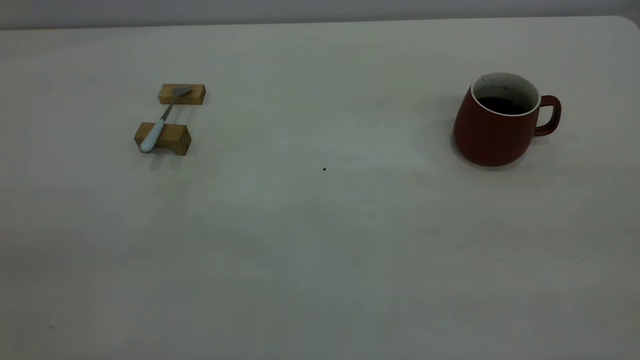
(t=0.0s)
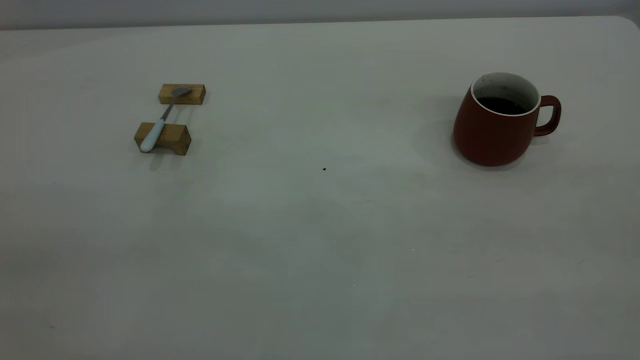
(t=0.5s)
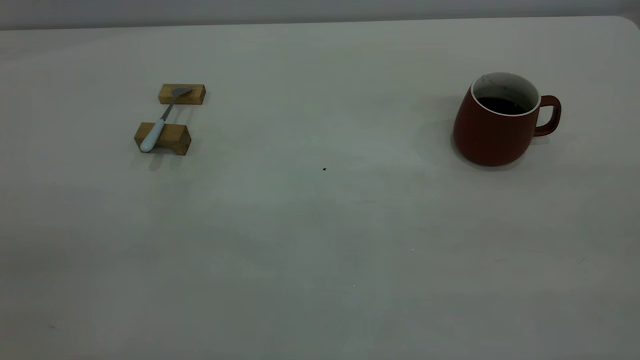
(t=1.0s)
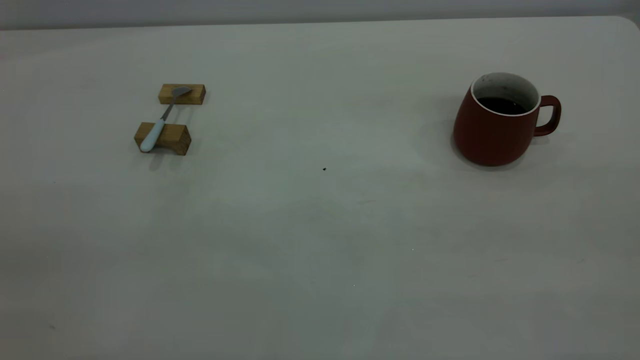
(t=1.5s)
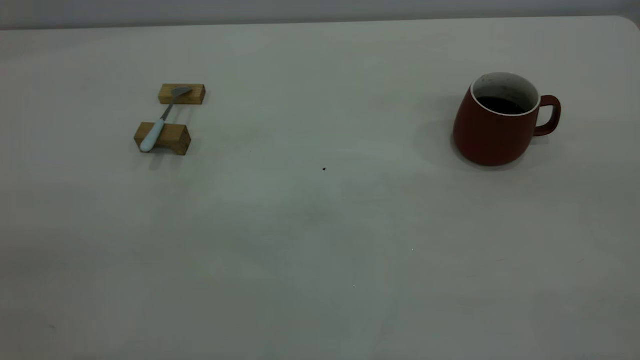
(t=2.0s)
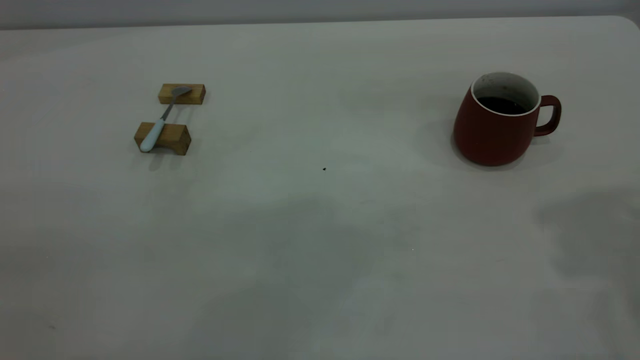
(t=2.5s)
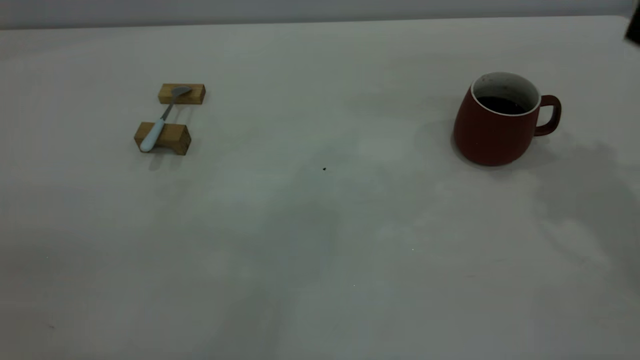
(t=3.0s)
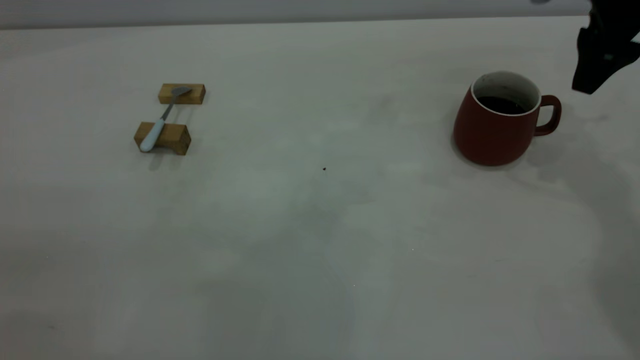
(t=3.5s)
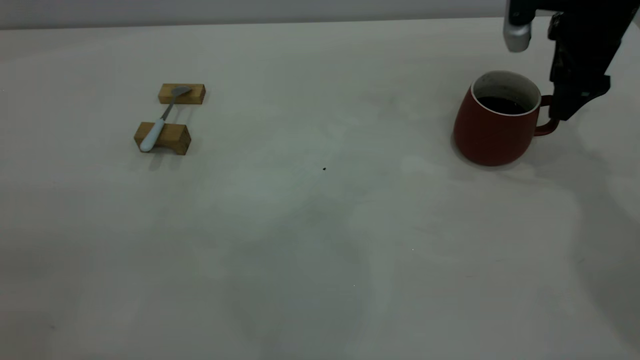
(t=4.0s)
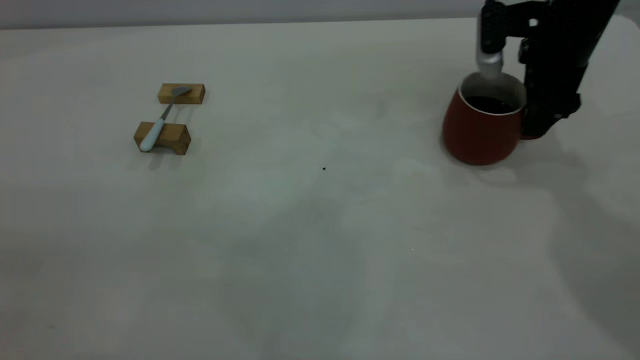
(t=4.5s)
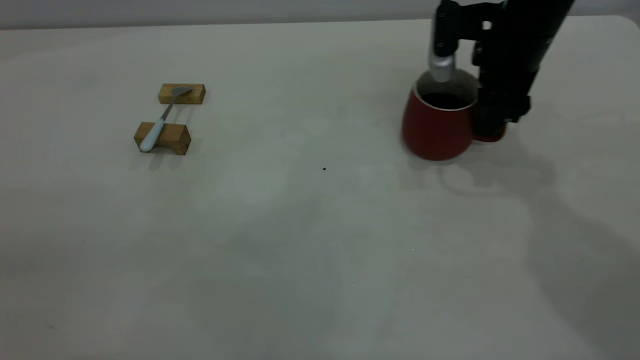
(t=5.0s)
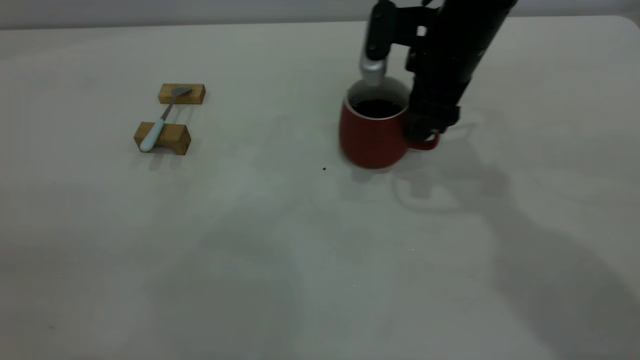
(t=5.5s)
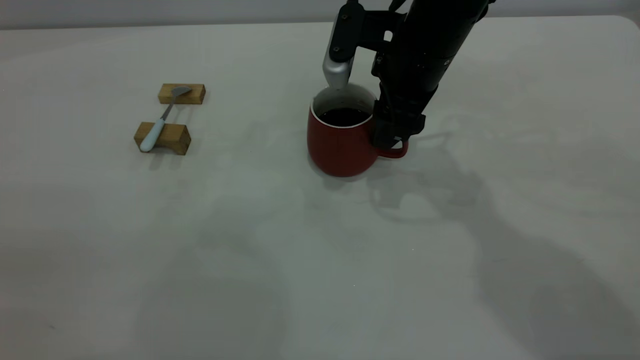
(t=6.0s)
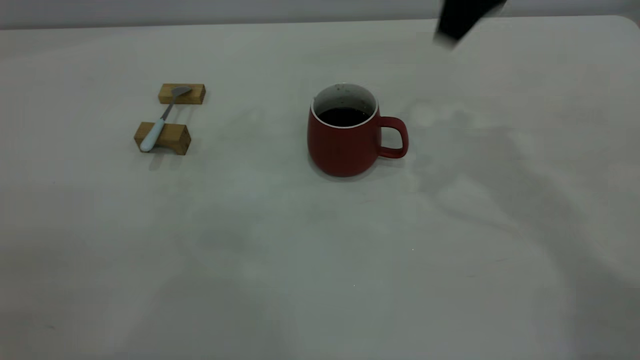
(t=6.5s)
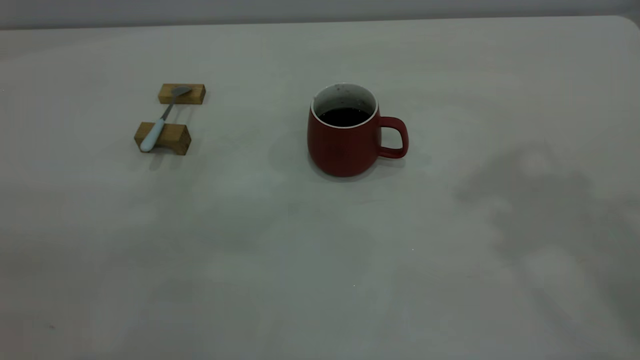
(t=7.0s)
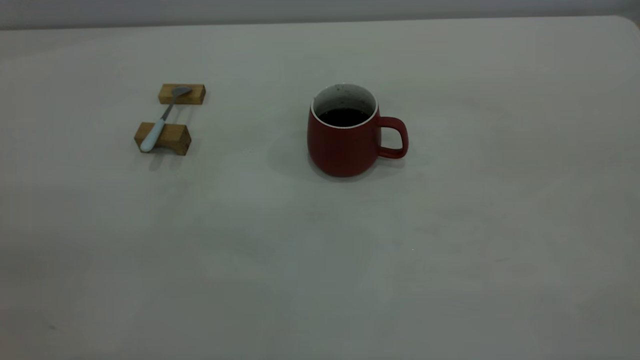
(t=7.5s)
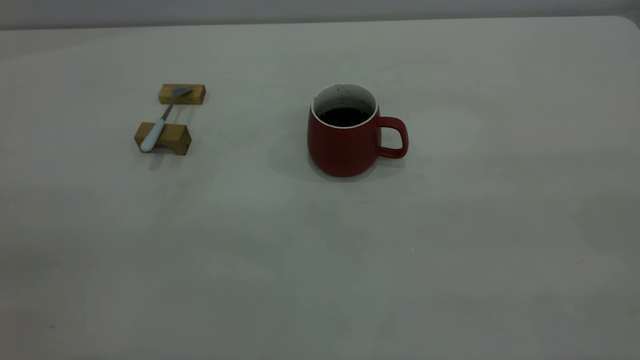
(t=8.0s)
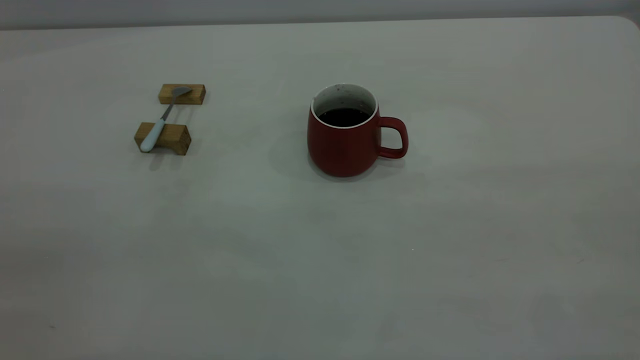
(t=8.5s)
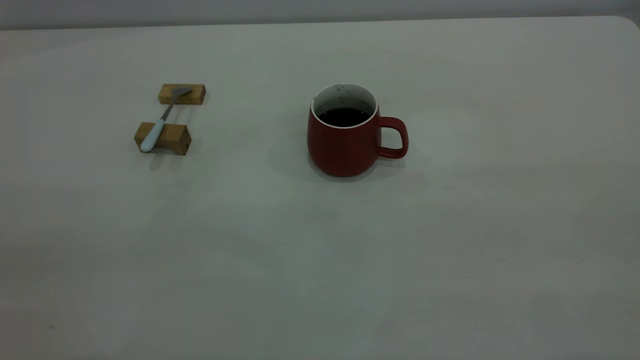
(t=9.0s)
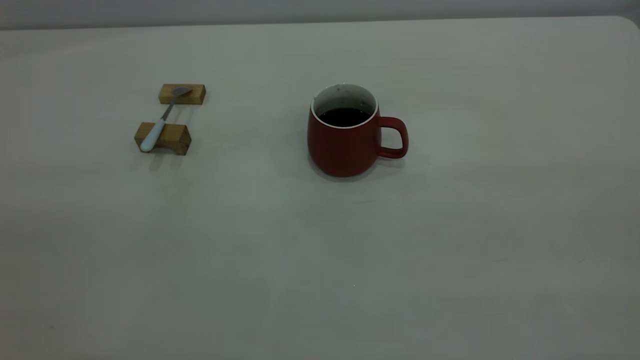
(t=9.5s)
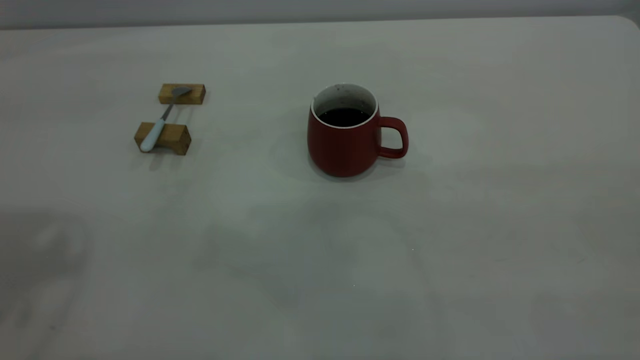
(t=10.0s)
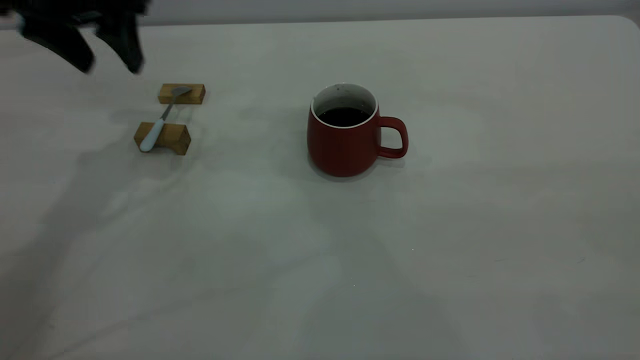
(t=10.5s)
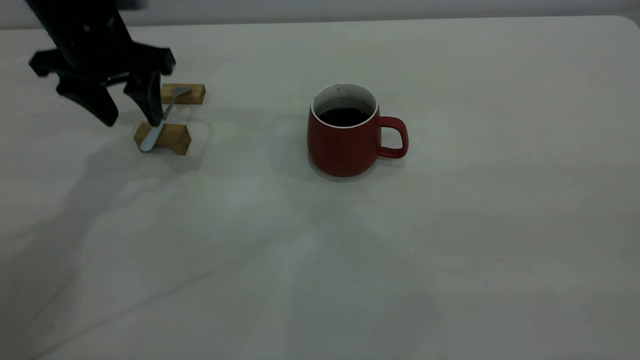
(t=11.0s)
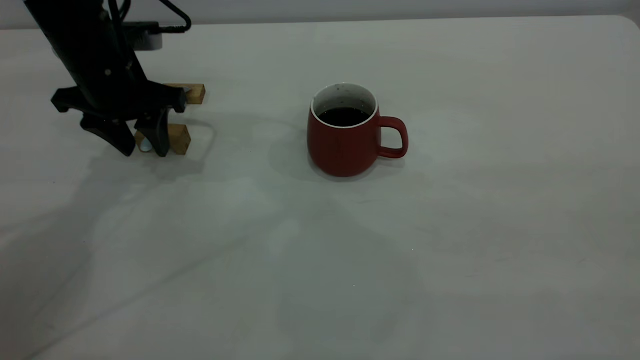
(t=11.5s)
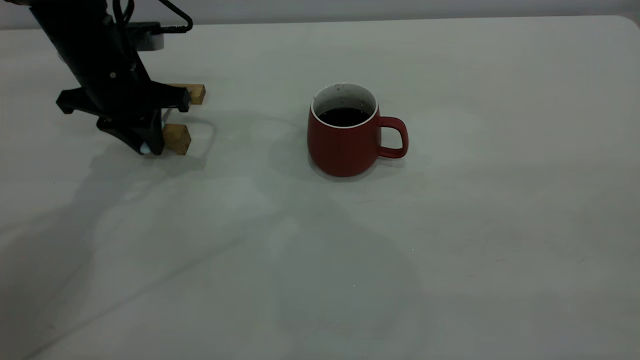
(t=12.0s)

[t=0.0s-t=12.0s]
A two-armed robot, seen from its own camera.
Step, t=0.0s to t=6.0s: Move the cup with coffee to the center of view.
t=2.0s to t=4.0s: The right gripper is displaced forward and downward by roughly 40 cm, and opens its fingers.
t=4.0s to t=6.0s: The right gripper travels to the left by some 15 cm.
t=6.0s to t=8.0s: The right gripper heads backward, upward and to the right, covering approximately 50 cm.
t=10.0s to t=12.0s: The left gripper moves downward and forward, about 30 cm, and closes up.

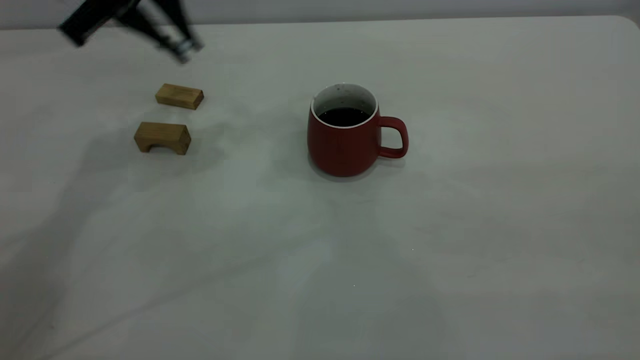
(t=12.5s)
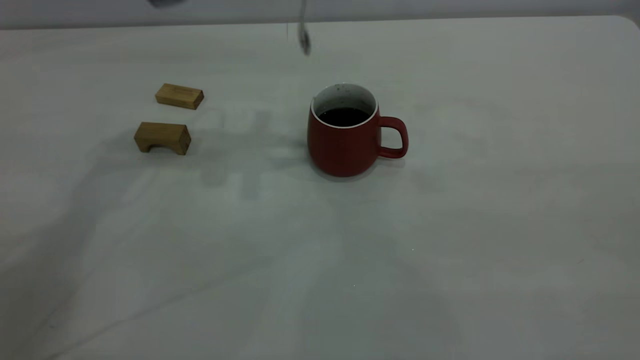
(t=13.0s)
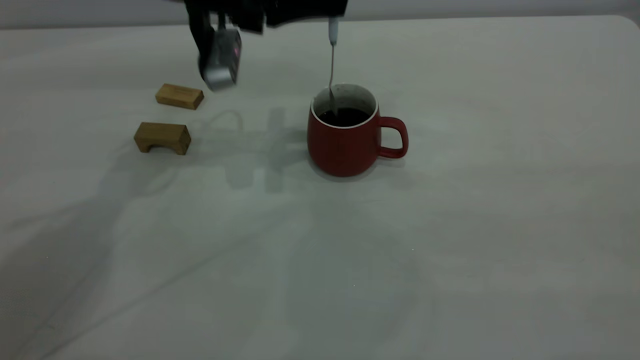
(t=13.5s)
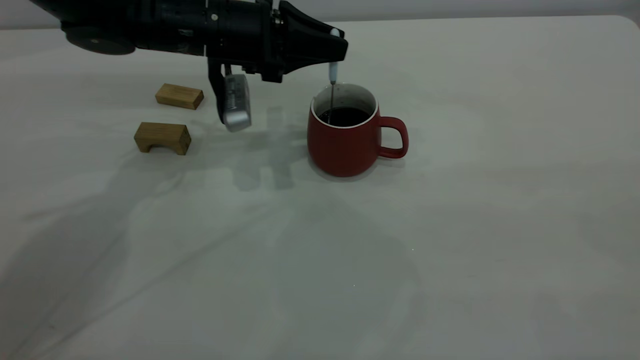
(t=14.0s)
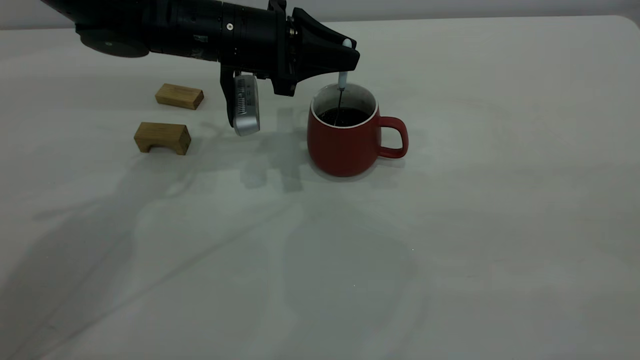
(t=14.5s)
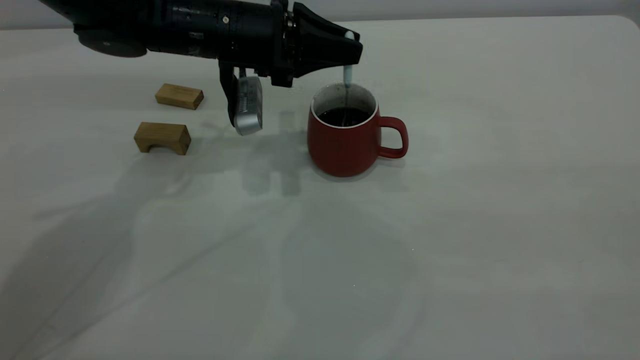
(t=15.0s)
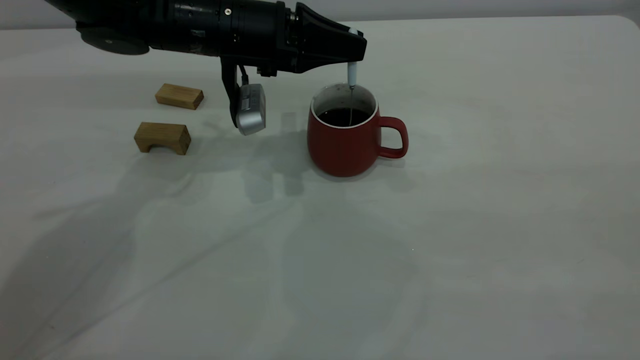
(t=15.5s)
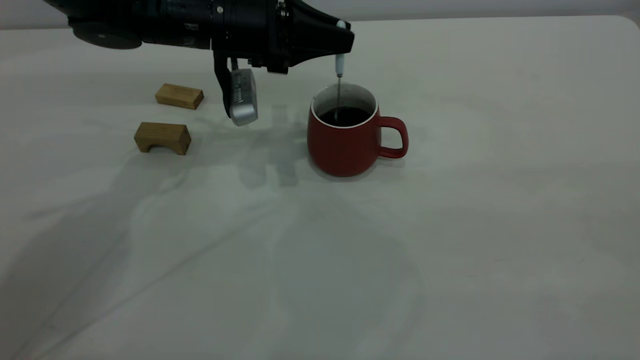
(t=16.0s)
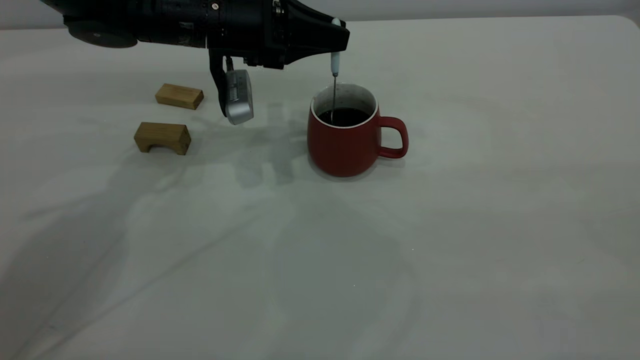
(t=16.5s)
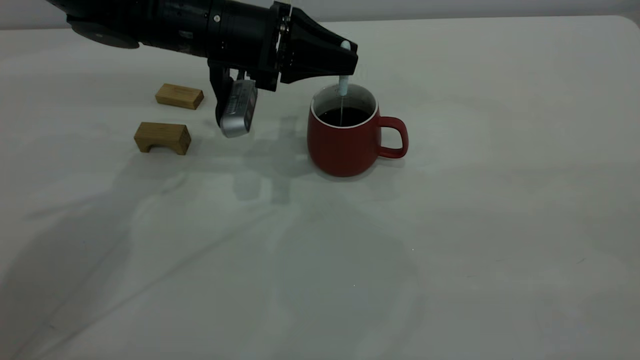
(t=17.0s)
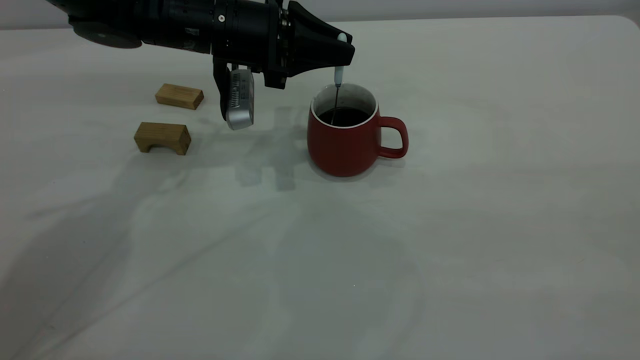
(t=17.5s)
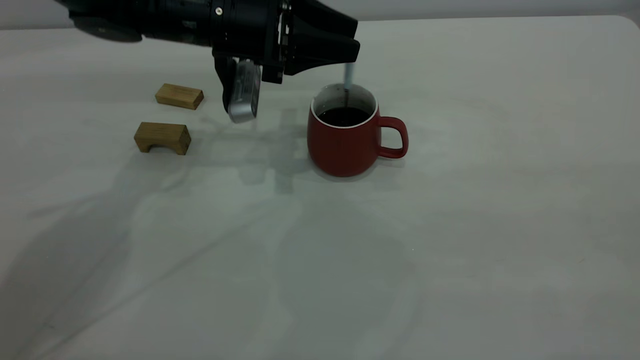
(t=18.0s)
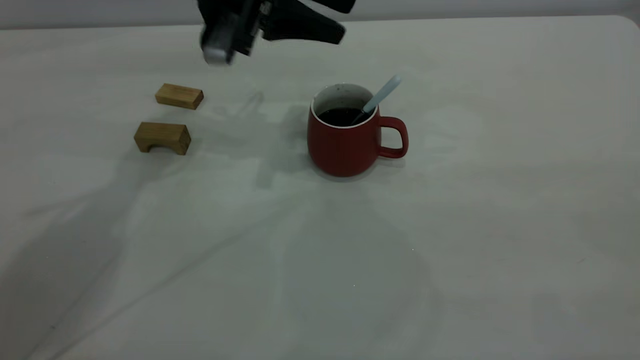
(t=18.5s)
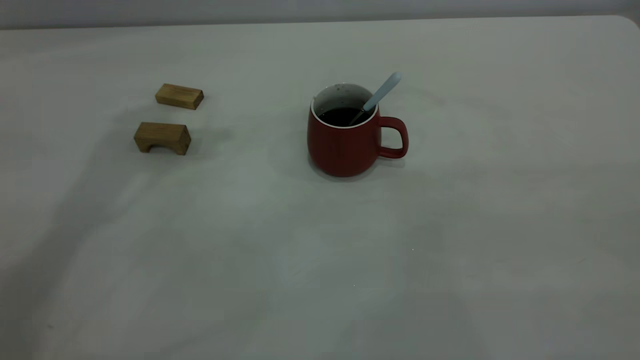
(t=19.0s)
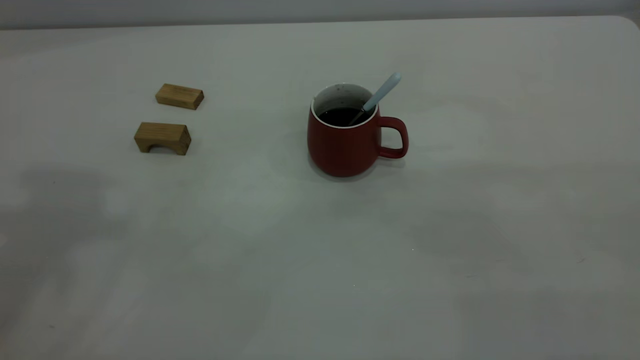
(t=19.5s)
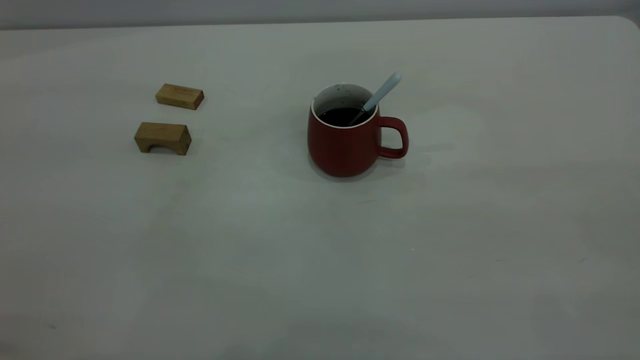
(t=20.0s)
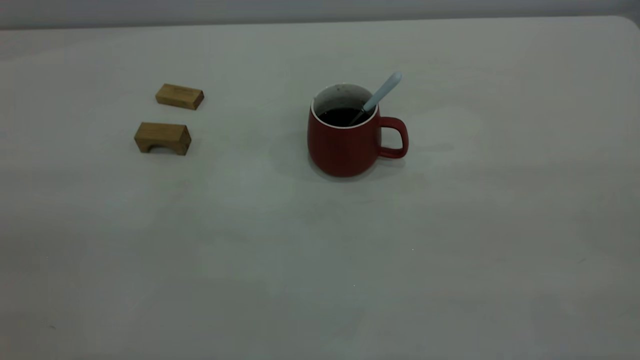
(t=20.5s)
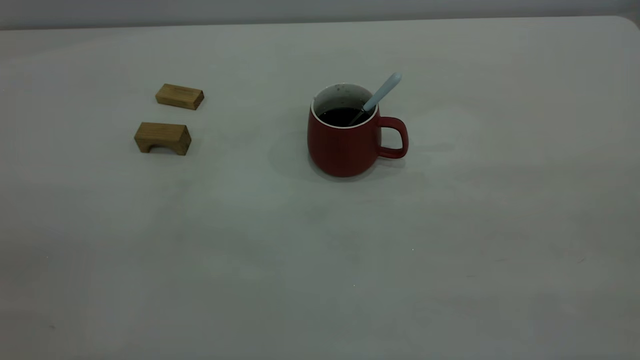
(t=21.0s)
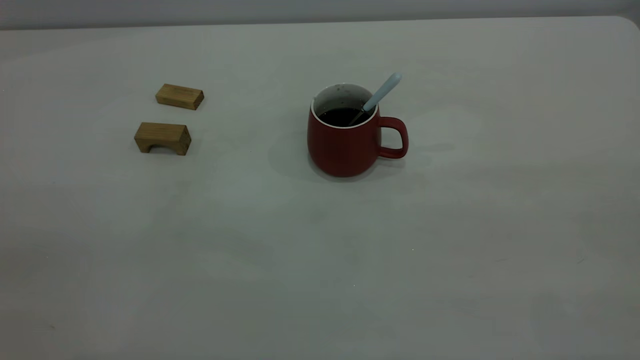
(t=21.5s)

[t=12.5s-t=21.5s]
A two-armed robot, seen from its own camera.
Step, t=12.5s to t=18.0s: Stir the coffee in the cup.
t=12.5s to t=14.5s: The left gripper shifts approximately 15 cm downward and to the right.
t=14.5s to t=17.0s: The grippers make only small movements.
t=17.0s to t=19.5s: The left gripper is displaced upward and backward by some 40 cm, and opens up.
